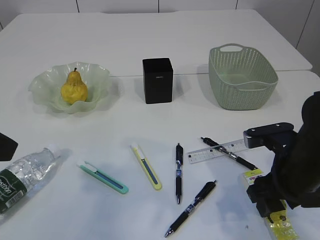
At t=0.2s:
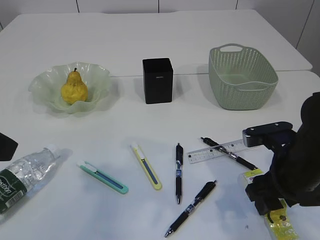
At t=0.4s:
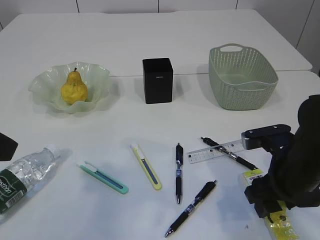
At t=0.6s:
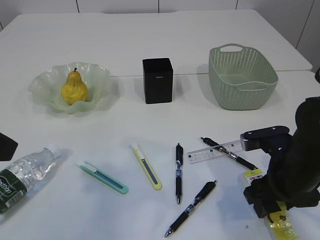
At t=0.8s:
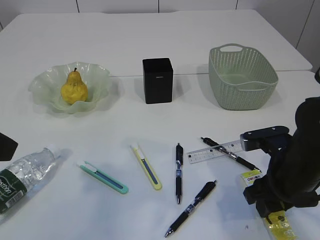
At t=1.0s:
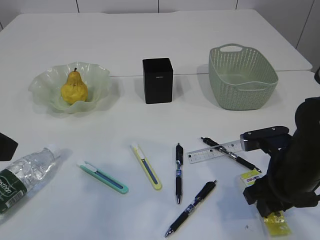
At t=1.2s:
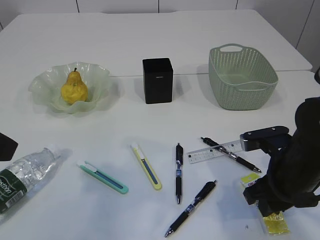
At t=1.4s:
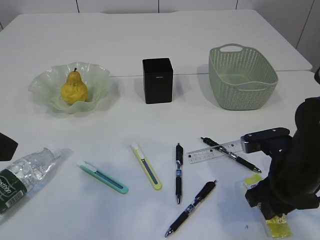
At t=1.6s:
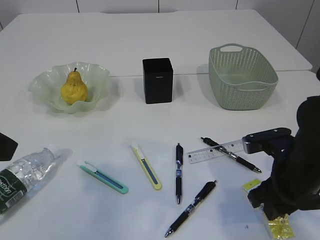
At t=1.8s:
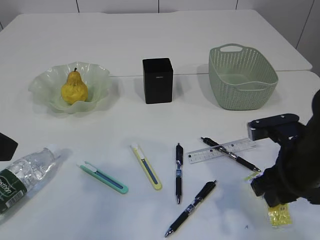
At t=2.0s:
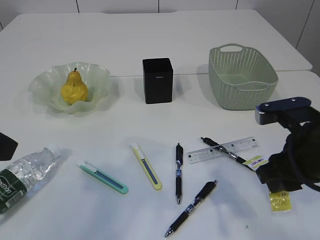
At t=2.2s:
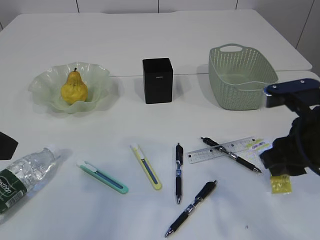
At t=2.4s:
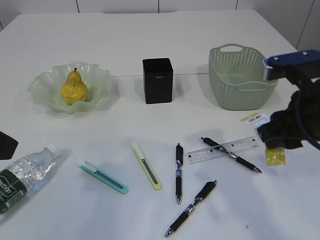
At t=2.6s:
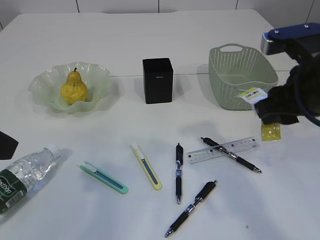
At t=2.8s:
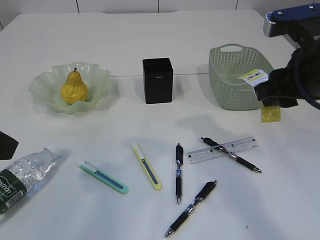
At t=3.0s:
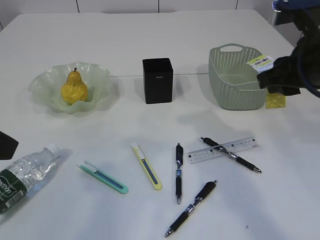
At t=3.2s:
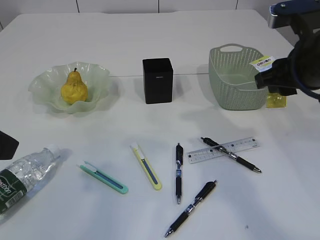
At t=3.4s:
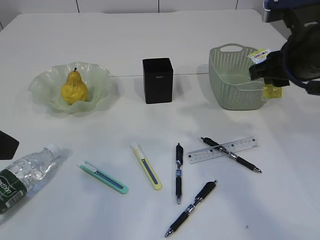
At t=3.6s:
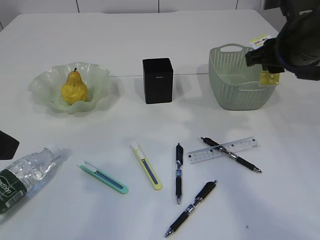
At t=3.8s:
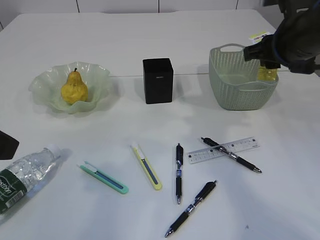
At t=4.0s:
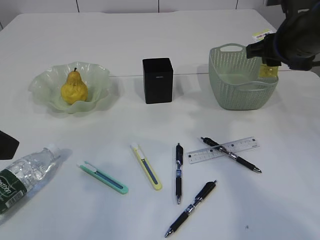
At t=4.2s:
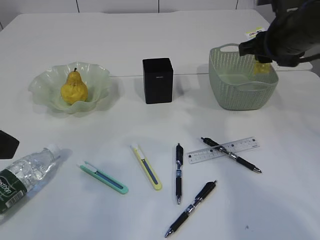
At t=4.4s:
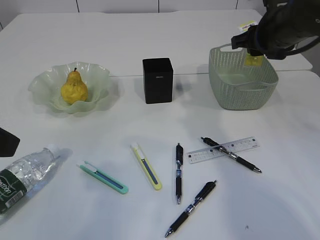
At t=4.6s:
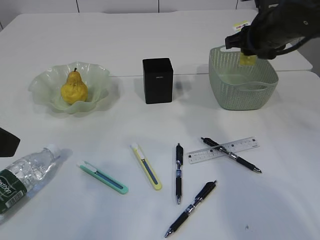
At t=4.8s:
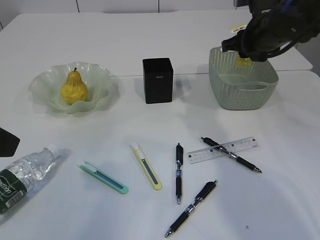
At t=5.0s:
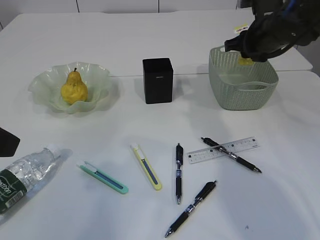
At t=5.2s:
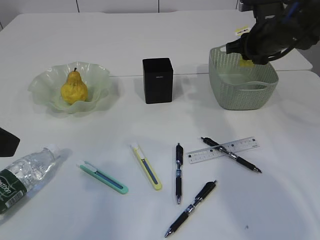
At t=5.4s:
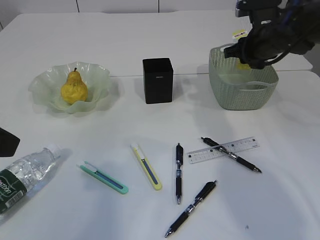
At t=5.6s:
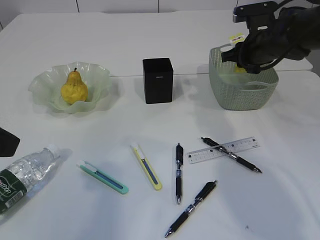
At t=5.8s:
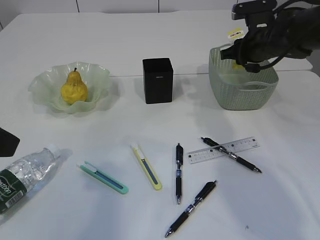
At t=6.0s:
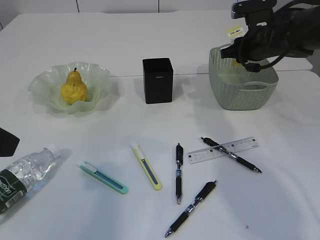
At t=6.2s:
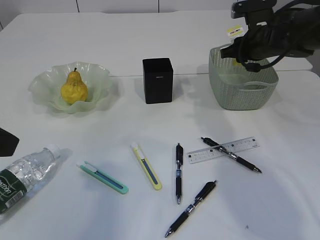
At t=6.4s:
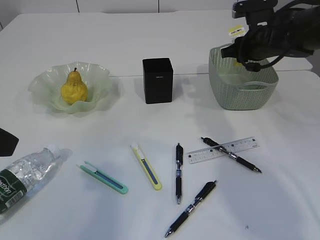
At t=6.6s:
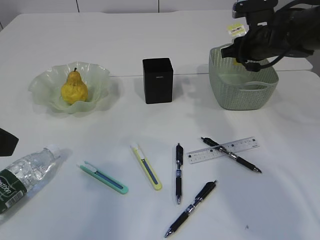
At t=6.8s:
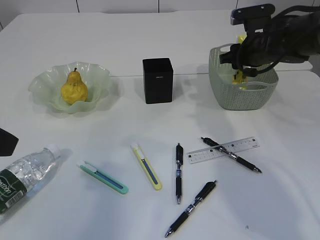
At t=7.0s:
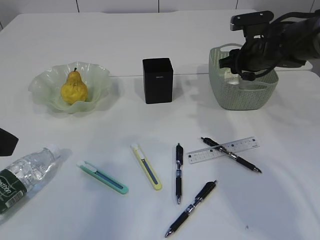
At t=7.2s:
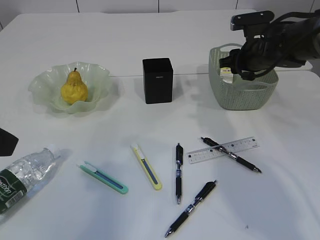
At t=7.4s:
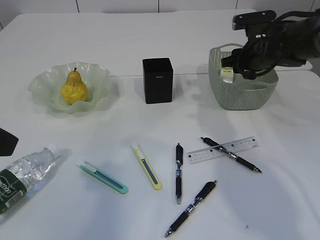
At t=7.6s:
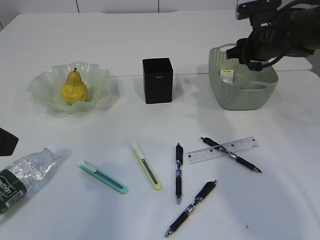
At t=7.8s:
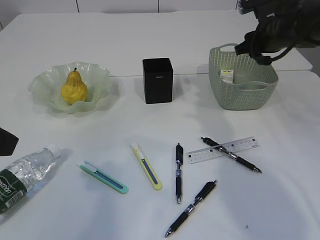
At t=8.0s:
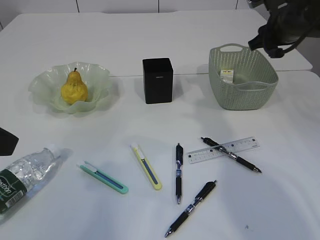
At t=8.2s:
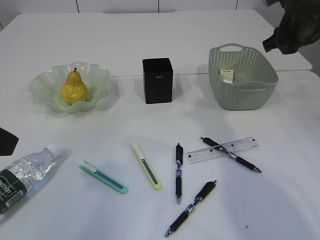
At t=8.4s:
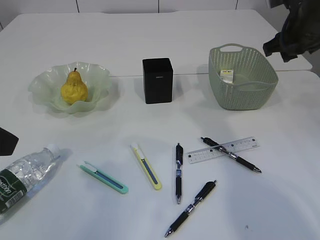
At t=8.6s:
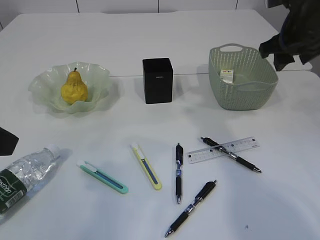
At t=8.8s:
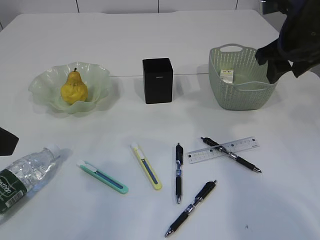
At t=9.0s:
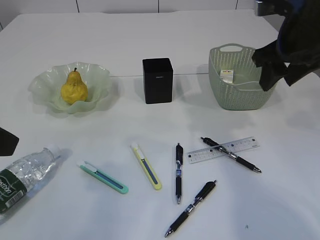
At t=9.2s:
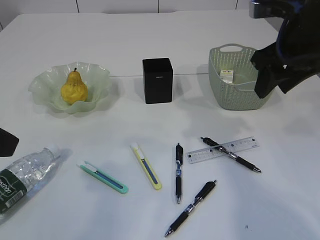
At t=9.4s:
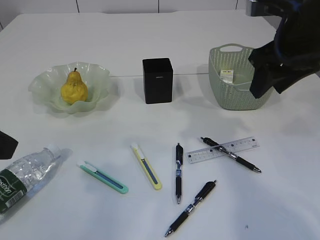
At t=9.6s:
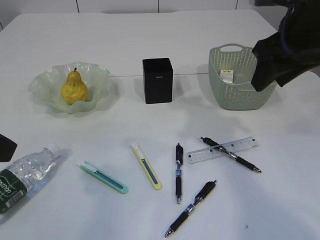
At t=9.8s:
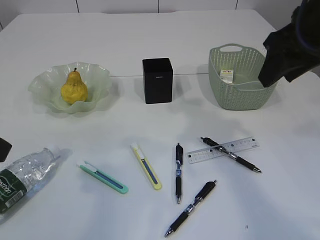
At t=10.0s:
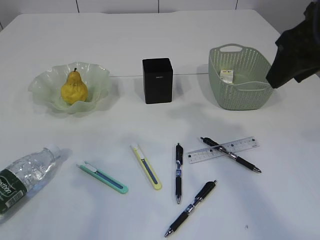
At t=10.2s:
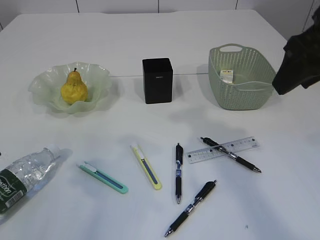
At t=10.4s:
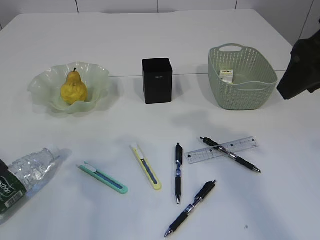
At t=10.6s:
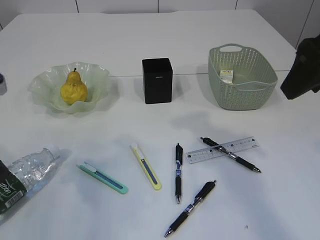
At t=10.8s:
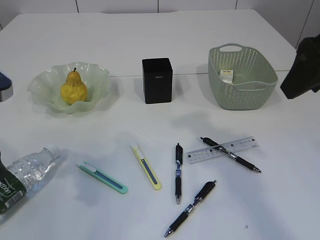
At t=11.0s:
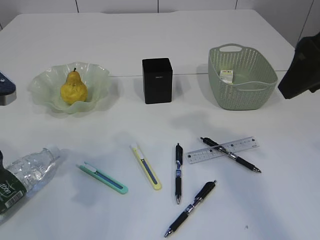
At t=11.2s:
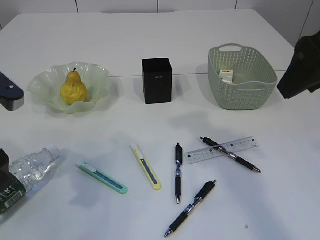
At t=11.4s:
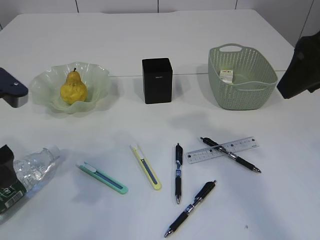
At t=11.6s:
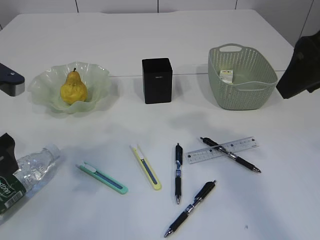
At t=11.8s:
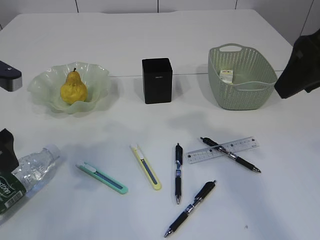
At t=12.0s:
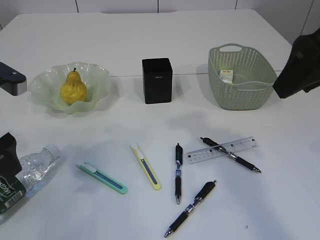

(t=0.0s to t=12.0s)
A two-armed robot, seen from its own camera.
Step, t=2.0s - t=7.6s: Place the plastic in the basket.
t=0.0s - t=1.6s: The right gripper closes.
t=1.6s - t=3.0s: The right gripper heads upward, covering some 15 cm.
t=3.0s - t=4.4s: The right gripper moves forward, about 10 cm.
t=4.4s - t=6.0s: The right gripper is displaced forward and downward by approximately 10 cm.
t=6.0s - t=7.6s: There are only small adjustments of the grippers.
t=7.6s - t=9.0s: The right gripper goes approximately 15 cm backward and upward.
t=9.0s - t=10.4s: The right gripper heads backward, covering about 10 cm.
t=10.4s - t=12.0s: The left gripper goes approximately 5 cm forward.

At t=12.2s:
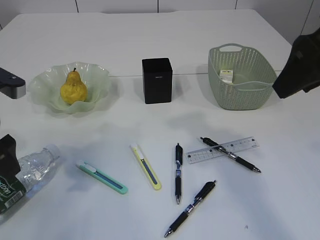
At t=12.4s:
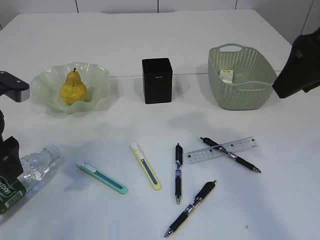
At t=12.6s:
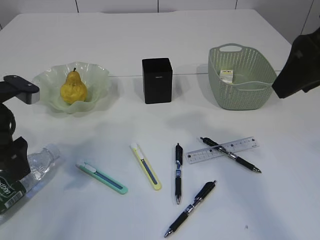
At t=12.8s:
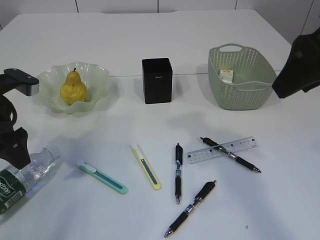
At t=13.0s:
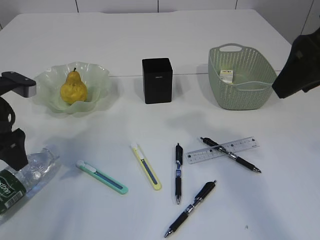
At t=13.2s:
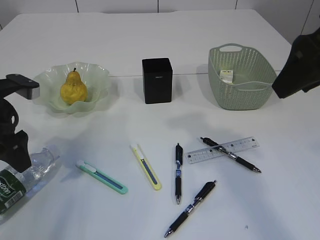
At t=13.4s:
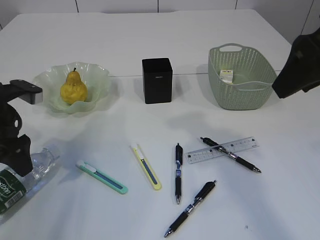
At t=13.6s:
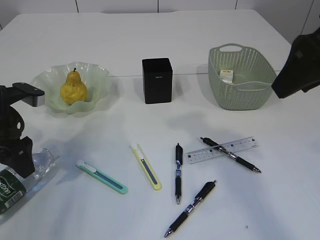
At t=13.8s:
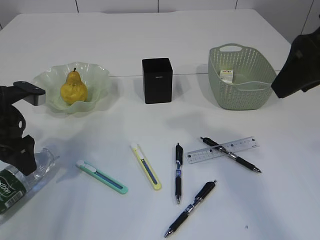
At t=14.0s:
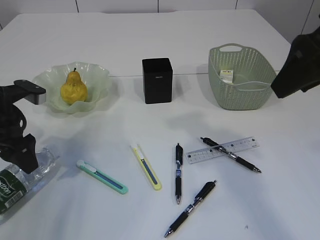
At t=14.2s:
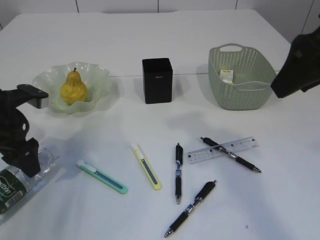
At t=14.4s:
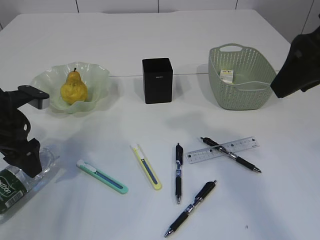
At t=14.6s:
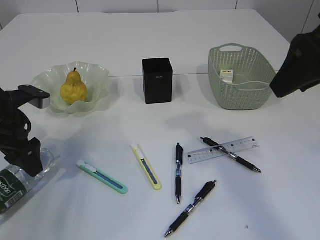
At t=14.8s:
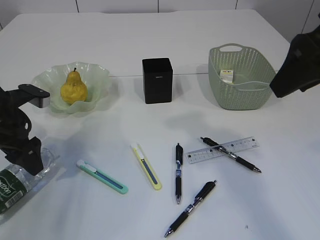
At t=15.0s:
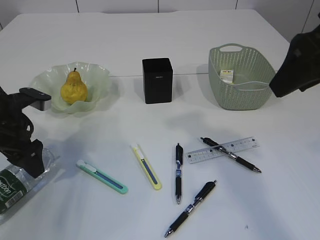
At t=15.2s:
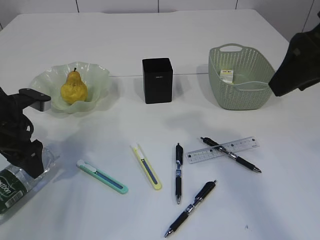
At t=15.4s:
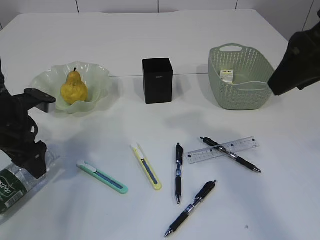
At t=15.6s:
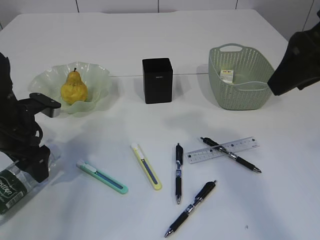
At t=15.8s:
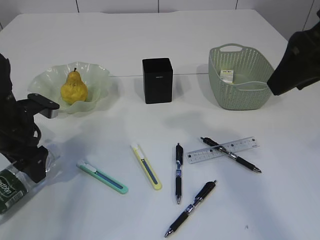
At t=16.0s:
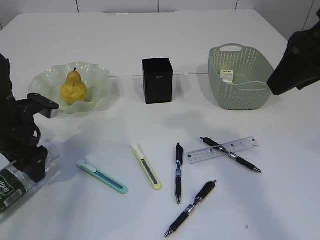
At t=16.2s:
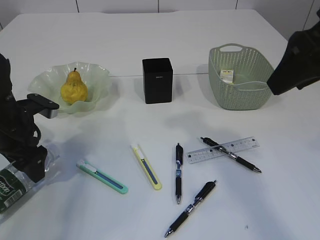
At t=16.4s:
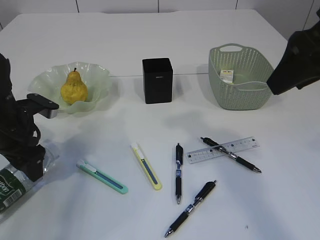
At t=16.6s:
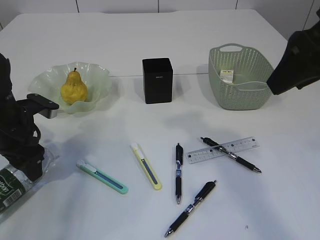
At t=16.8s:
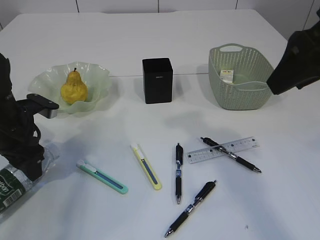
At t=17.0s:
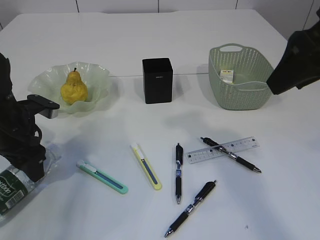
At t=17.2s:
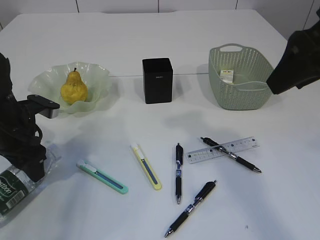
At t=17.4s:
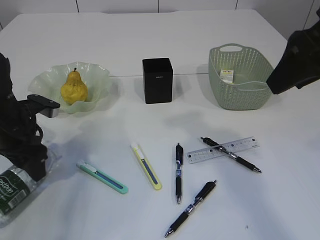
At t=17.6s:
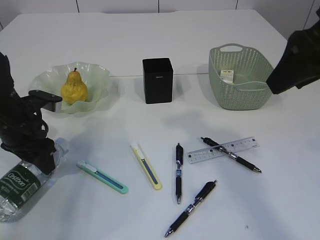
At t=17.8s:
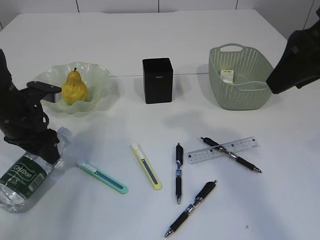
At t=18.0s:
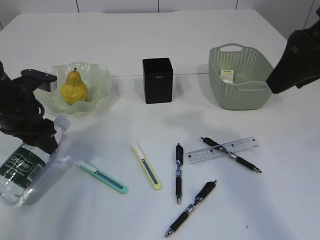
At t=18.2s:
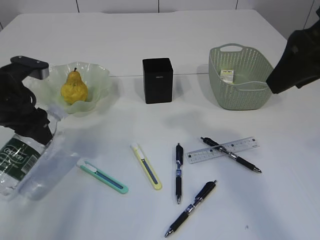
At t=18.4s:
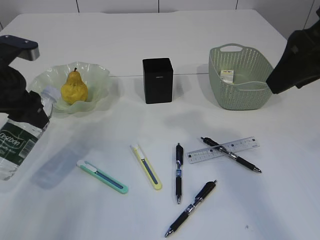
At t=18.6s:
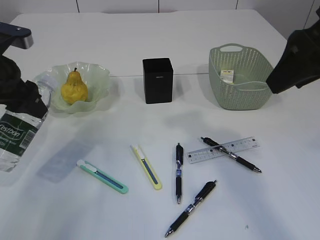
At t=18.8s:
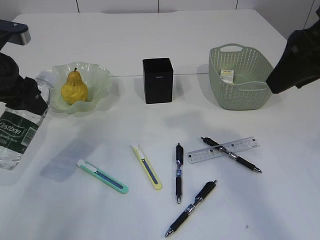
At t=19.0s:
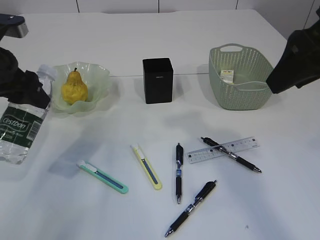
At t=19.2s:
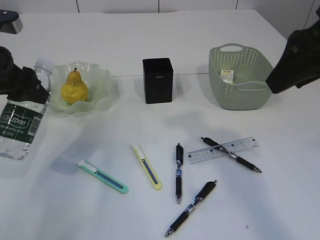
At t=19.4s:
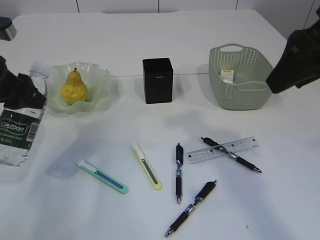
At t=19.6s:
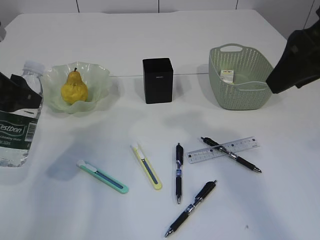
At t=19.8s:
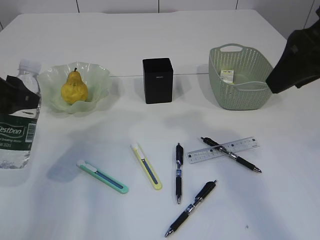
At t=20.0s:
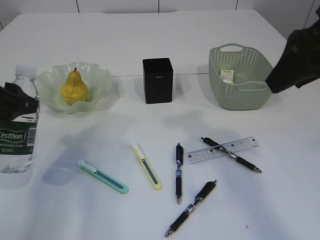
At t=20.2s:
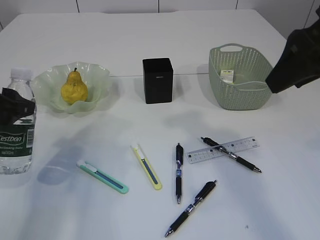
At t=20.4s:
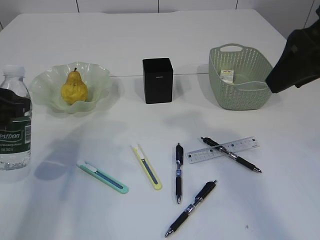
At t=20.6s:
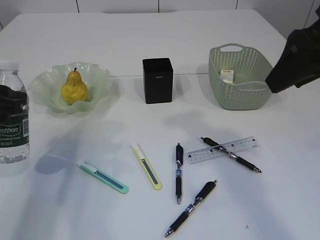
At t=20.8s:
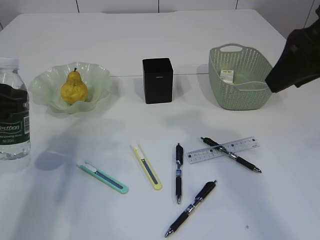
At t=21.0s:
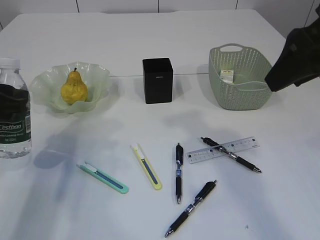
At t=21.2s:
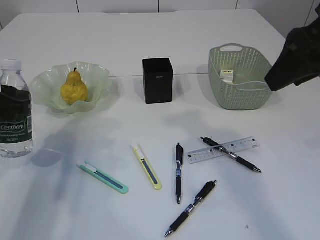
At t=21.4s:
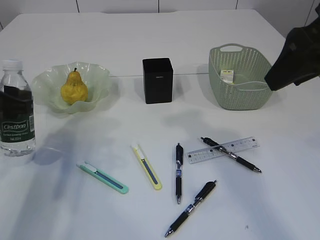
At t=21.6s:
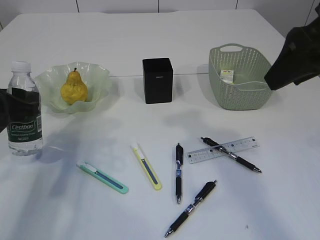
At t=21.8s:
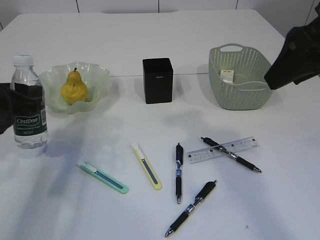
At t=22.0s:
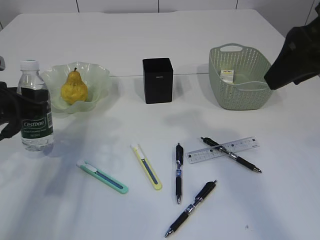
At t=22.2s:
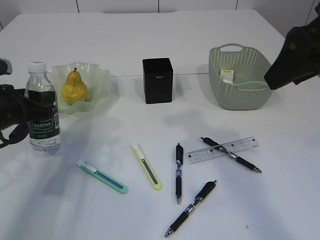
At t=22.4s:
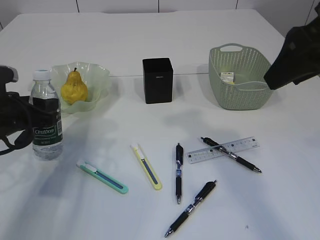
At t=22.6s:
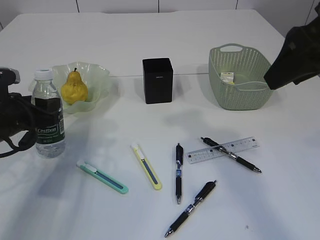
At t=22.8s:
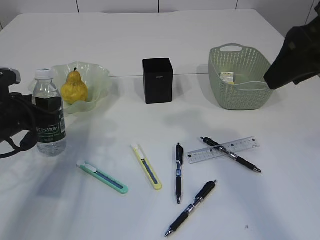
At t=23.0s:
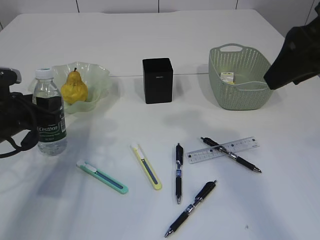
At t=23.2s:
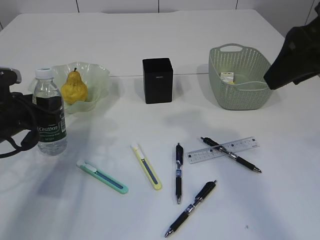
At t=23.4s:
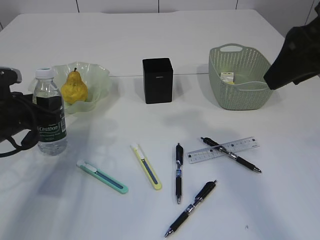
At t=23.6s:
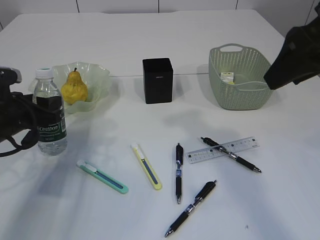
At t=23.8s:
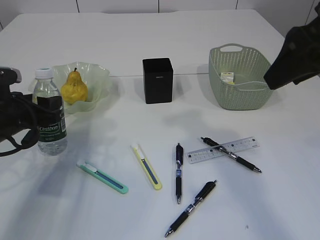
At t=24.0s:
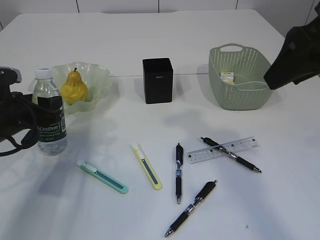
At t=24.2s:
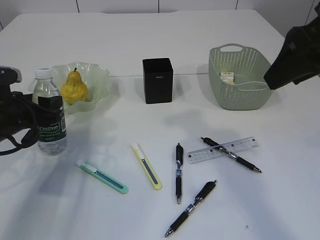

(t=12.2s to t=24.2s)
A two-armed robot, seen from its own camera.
Step, t=12.2s - t=18.6s: Pick up the bottle with the left arm.
t=12.2s - t=13.8s: The left gripper moves forward and downward, approximately 10 cm.
t=13.8s - t=16.6s: There are only small adjustments of the grippers.
t=16.6s - t=18.2s: The left gripper heads upward, covering about 5 cm.
t=18.2s - t=19.8s: The left gripper moves backward, roughly 5 cm.
t=19.8s - t=21.2s: The left gripper moves roughly 5 cm.
t=21.2s - t=22.6s: The left gripper shifts approximately 5 cm downward.
t=22.6s - t=24.2s: Both grippers stay put.
